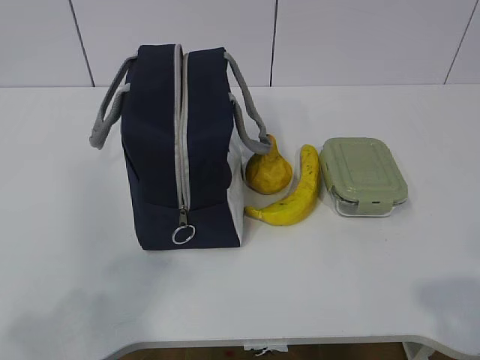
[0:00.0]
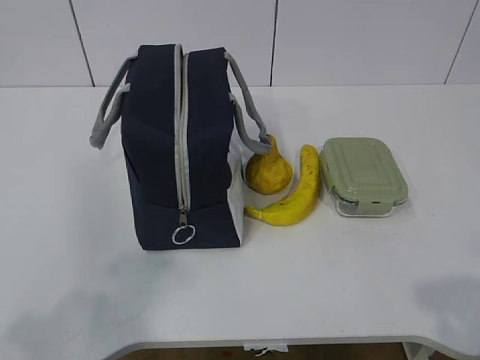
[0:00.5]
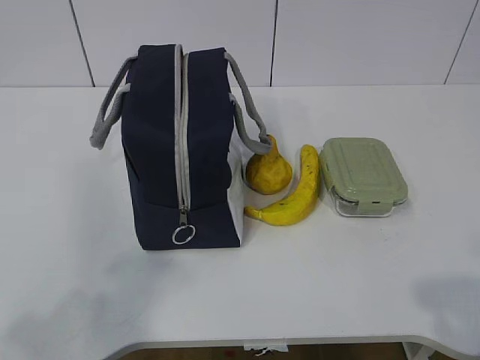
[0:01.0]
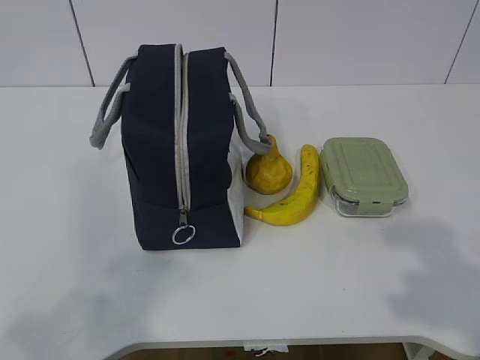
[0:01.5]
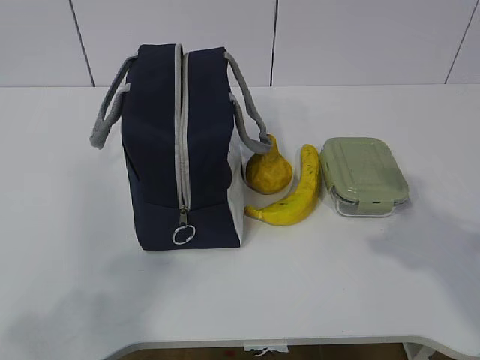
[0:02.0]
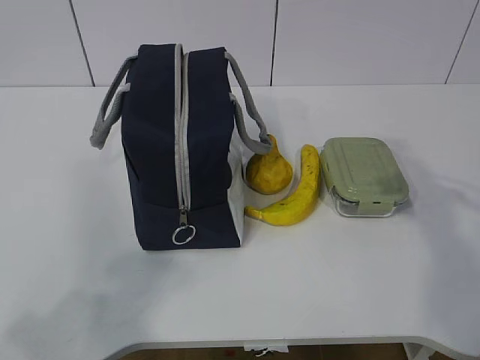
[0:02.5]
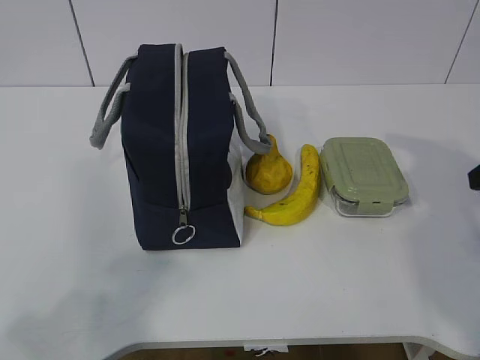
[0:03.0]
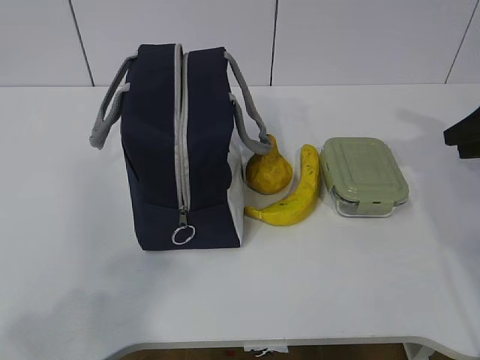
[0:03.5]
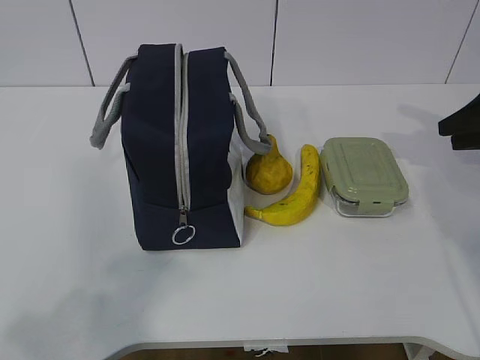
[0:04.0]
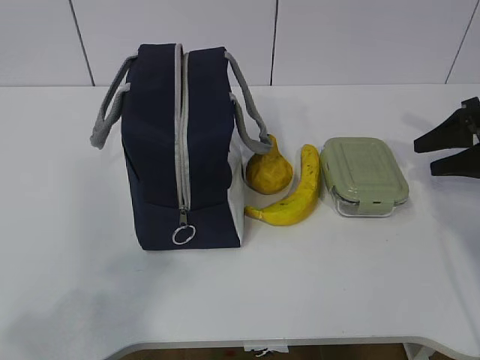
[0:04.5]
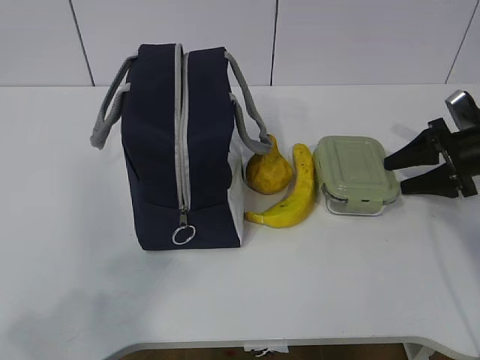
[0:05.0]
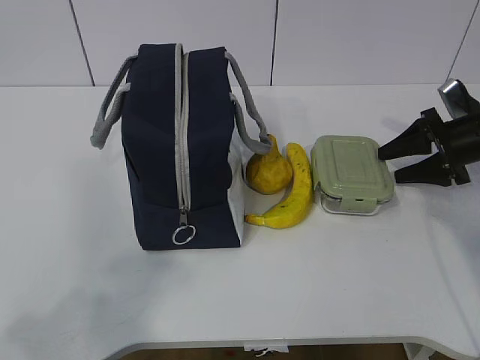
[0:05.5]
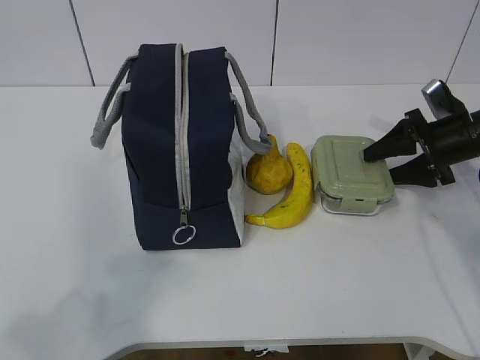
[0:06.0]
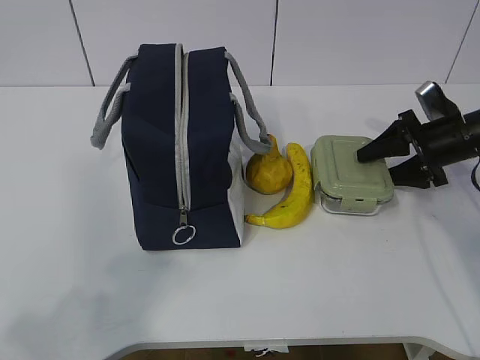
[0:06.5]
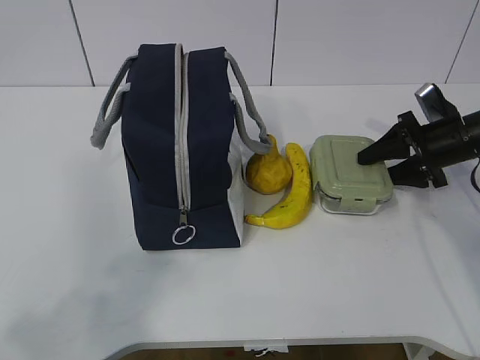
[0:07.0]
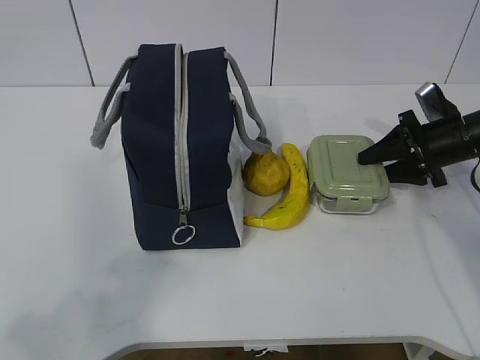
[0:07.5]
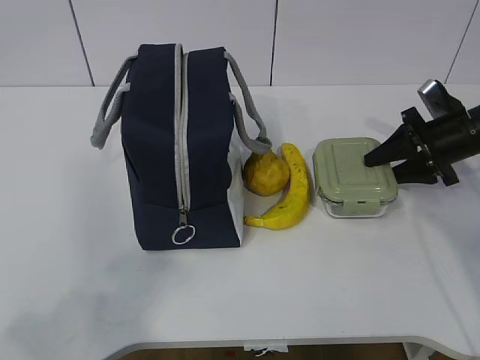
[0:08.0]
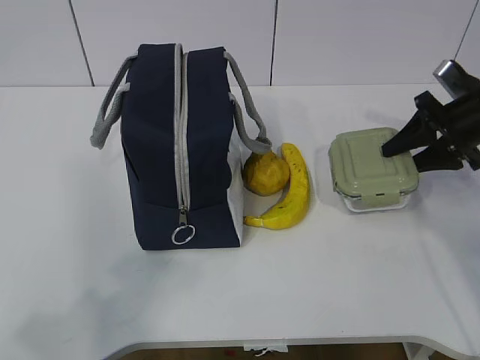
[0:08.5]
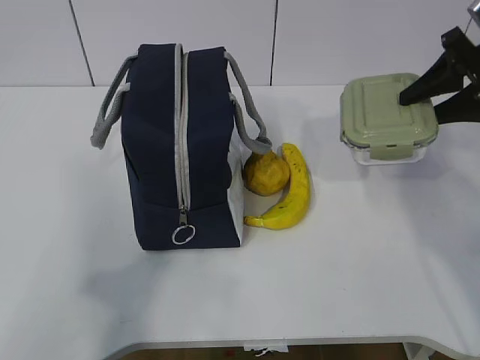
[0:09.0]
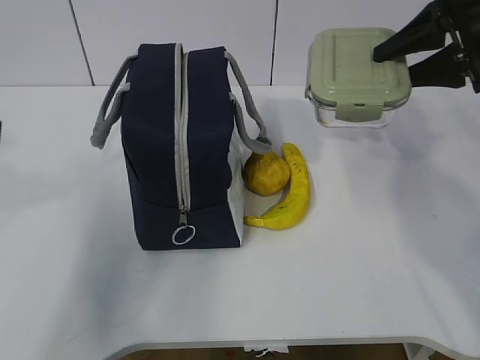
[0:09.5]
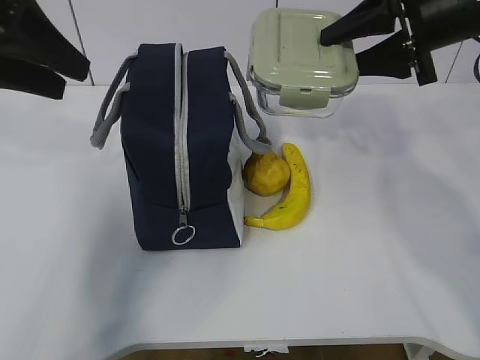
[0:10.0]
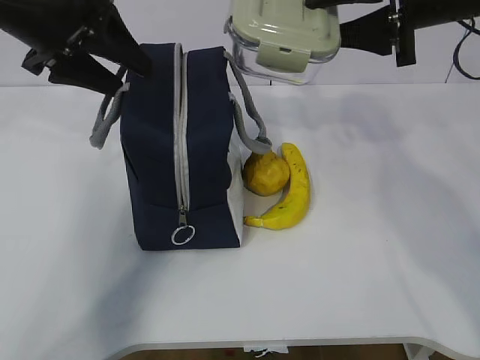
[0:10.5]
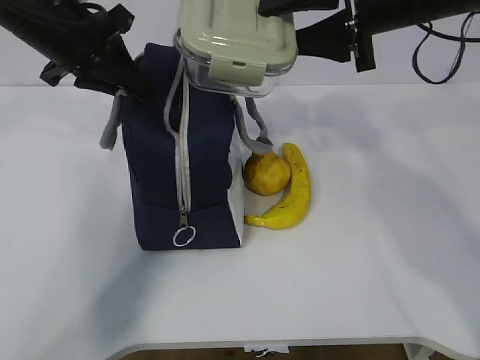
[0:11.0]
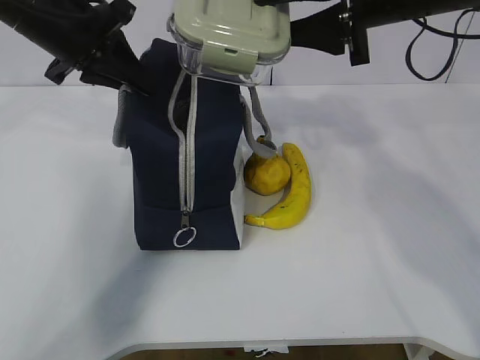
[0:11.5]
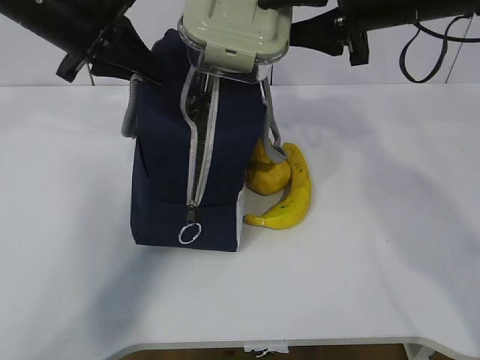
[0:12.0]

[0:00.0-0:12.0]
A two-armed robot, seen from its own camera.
Step, 0:00.0 to 0:06.0: Grab the lunch box with your right hand.
Step, 0:07.0 to 0:10.0: Grab the lunch bag with your left hand.
0:02.0 to 0:04.0: The right gripper travels forward and to the right by roughly 25 cm.
0:04.0 to 0:06.0: The right gripper goes about 10 cm downward and to the left.
0:06.0 to 0:08.0: The grippers stay close to where they were, moving slightly.
0:08.0 to 0:10.0: The left gripper shifts approximately 30 cm forward, while the right gripper shifts some 20 cm upward and to the left.
0:10.0 to 0:12.0: The left gripper heads forward and to the right, covering about 10 cm, and closes; the right gripper heads to the left, covering about 5 cm.

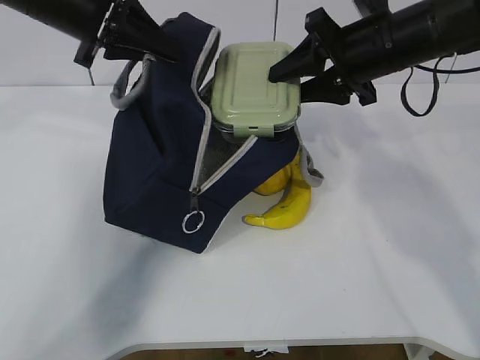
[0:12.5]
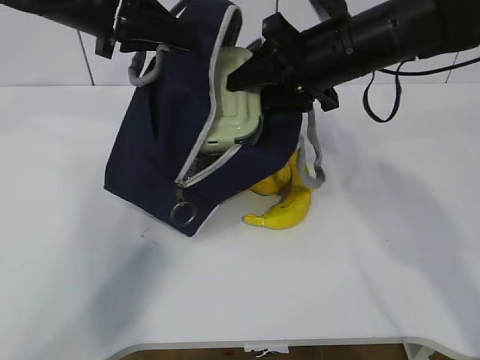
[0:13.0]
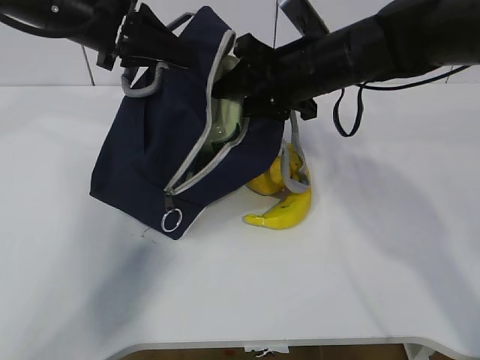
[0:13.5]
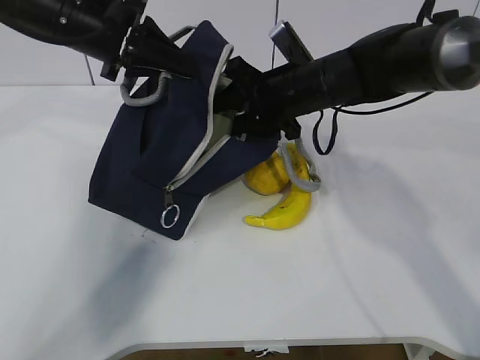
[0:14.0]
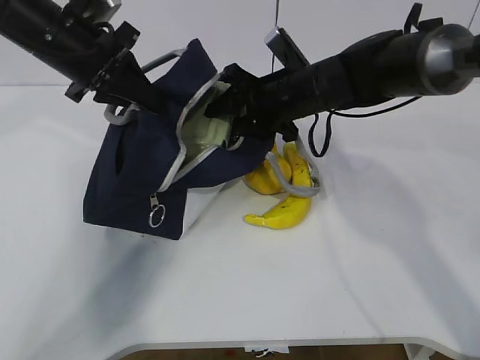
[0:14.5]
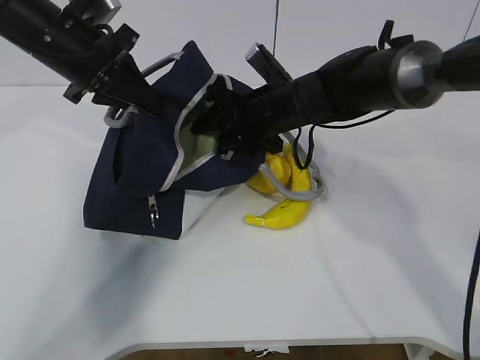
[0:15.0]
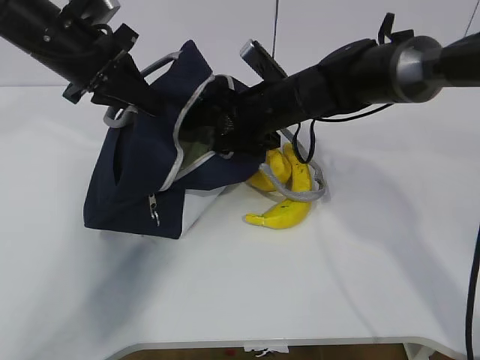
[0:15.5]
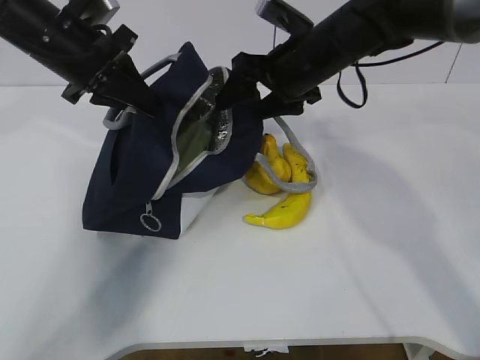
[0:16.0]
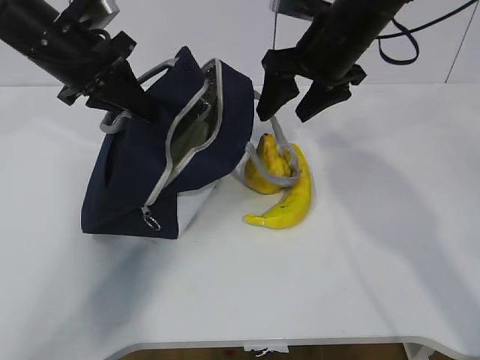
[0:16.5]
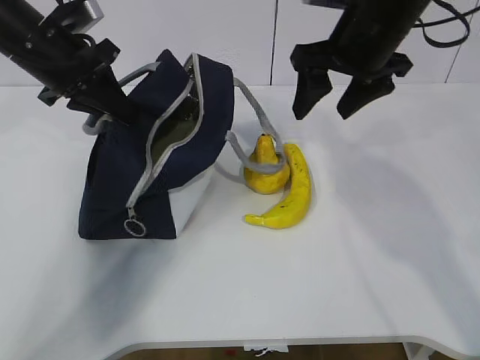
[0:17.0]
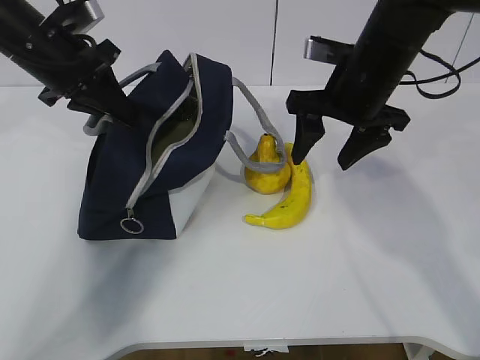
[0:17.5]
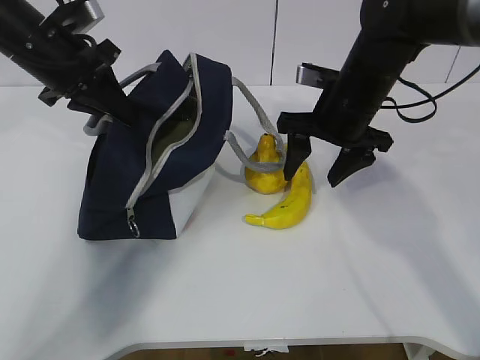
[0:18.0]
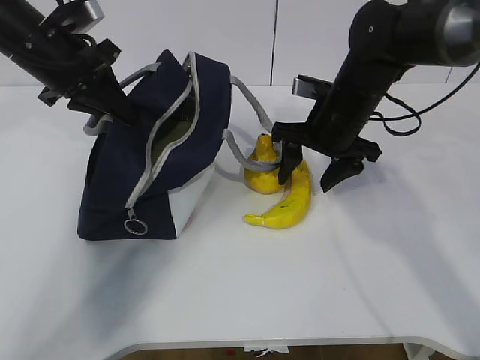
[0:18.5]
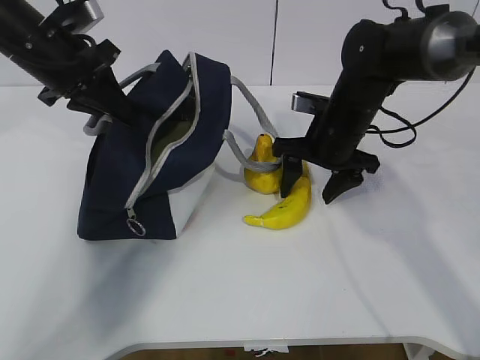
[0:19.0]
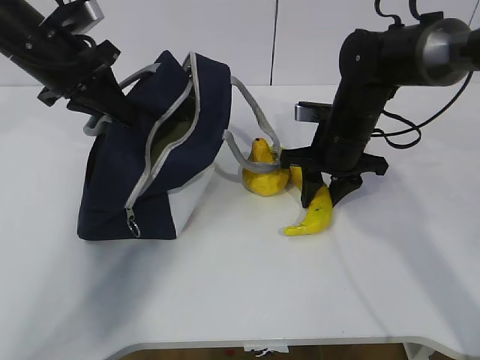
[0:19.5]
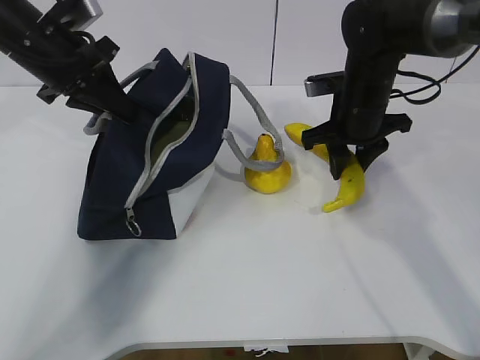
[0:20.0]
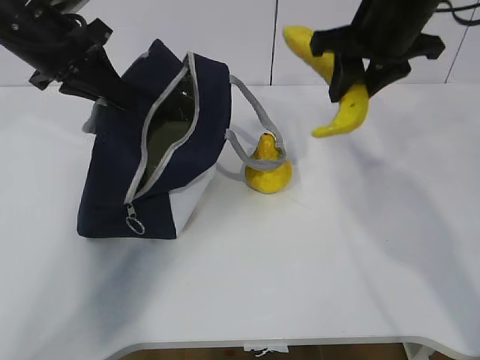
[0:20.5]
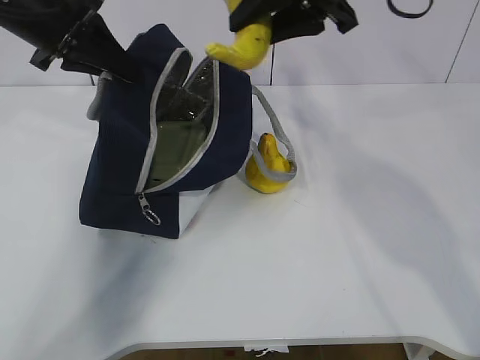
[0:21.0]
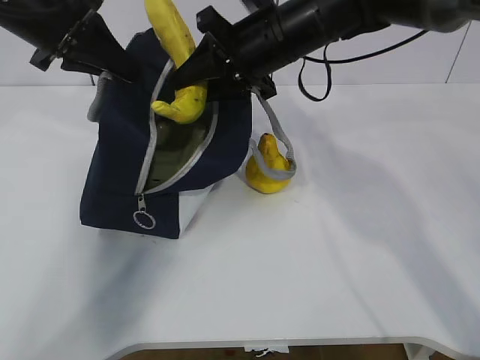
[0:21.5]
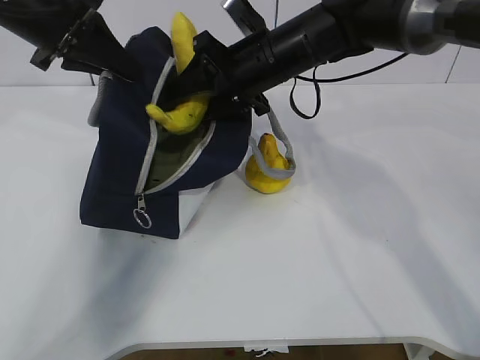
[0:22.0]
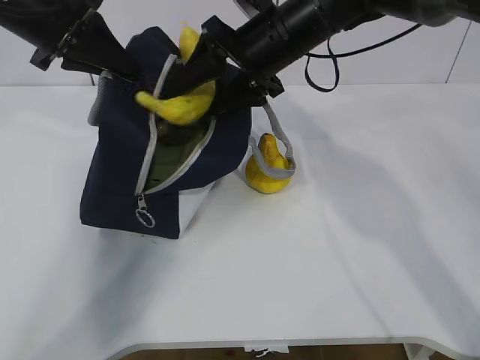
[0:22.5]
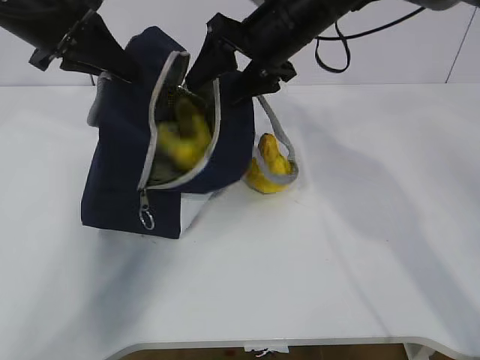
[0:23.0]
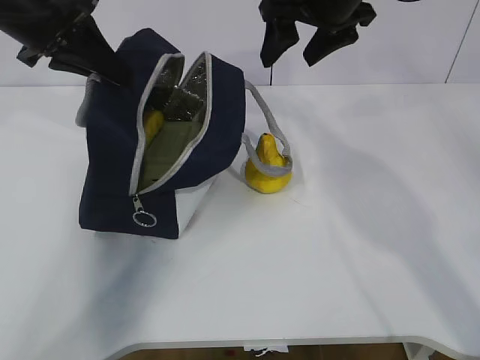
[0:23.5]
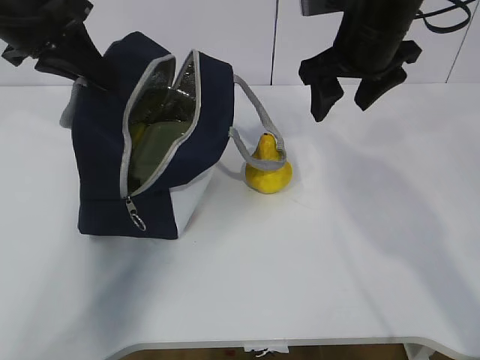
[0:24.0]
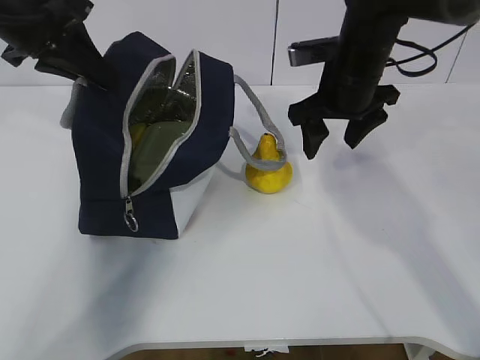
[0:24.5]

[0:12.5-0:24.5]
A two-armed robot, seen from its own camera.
Step, 0:13.5 to 0:16.0: Grab the banana with your right hand.
Step, 0:16.5 to 0:19.5: Place it into the bag with your right hand.
Step, 0:20.0 to 0:23.5: Grab the pear with your right hand.
0:12.5 to 0:14.5: The left gripper ends up roughly 5 cm from where it was. The right gripper is displaced to the left and downward by approximately 10 cm.
0:14.5 to 0:16.5: The right gripper is displaced upward by approximately 10 cm, and opens.
0:16.5 to 0:18.5: The right gripper goes about 10 cm downward.
0:18.5 to 0:20.5: The right gripper goes some 15 cm upward, and closes up.
0:20.5 to 0:22.5: The right gripper goes some 10 cm to the left and downward, and opens.
0:22.5 to 0:24.5: The right gripper is displaced to the right by some 10 cm.

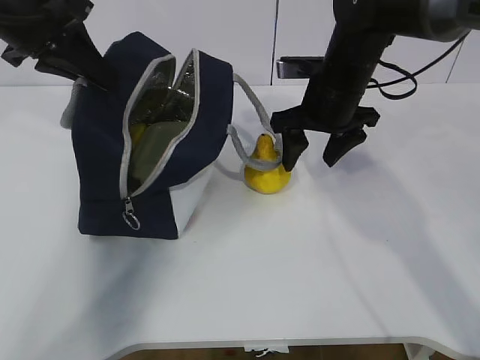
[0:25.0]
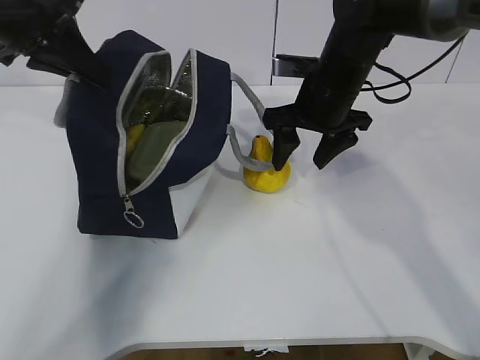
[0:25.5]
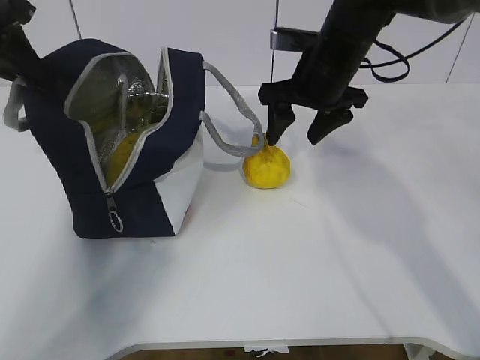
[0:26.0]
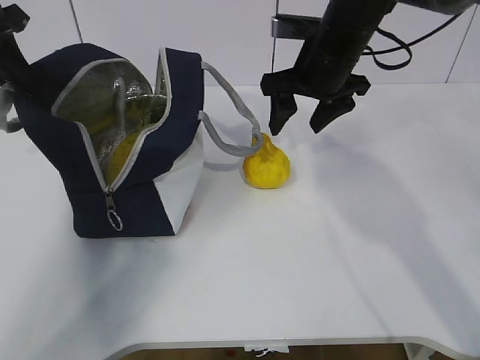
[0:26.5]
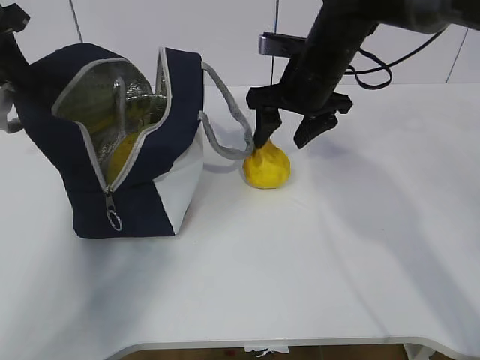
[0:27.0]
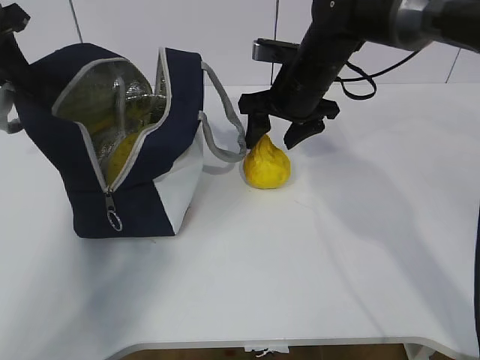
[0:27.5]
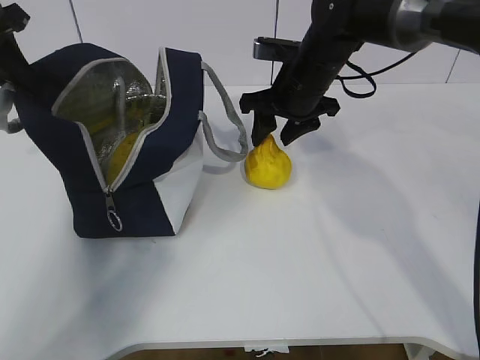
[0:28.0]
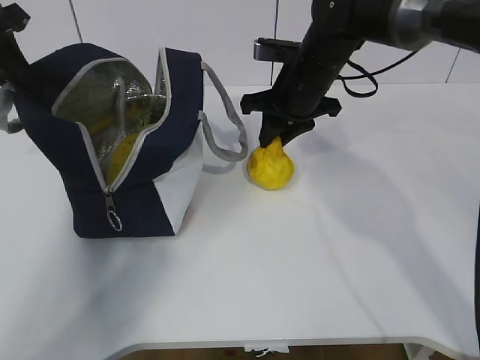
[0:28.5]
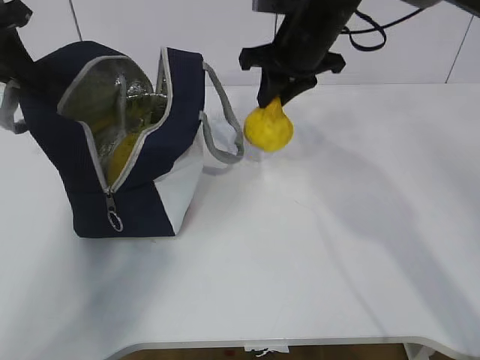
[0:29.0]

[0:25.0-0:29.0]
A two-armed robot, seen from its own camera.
Step, 0:26.0 to 0:26.5: Grab the lunch bag with your right hand.
Step, 0:27.0 to 0:28.5: Move the lunch bag to the right.
0:25.0 to 0:27.0: The left gripper is displaced to the left by approximately 10 cm.
0:27.0 to 0:29.0: The right gripper closes.
